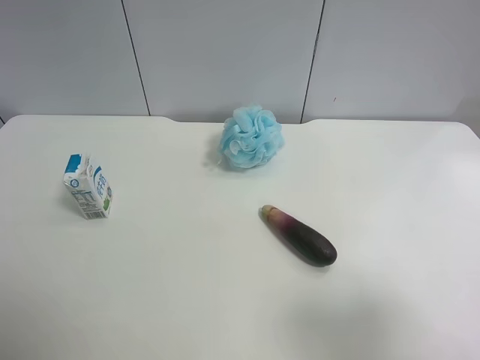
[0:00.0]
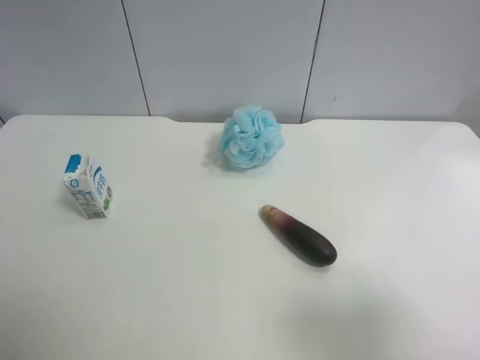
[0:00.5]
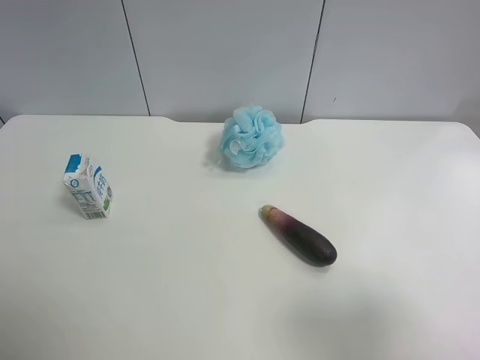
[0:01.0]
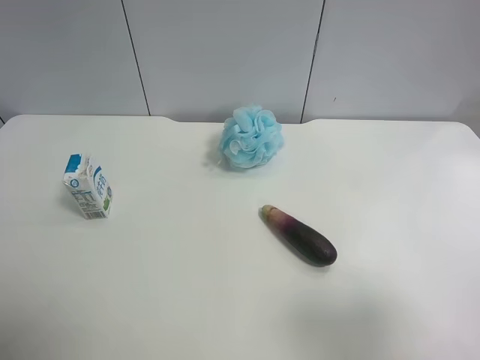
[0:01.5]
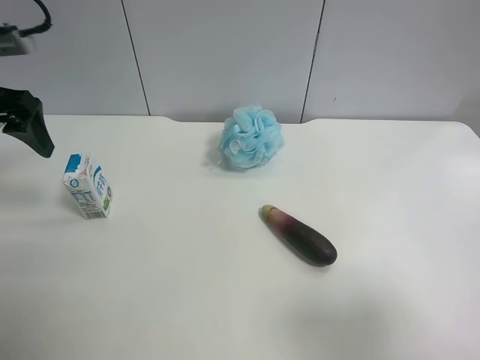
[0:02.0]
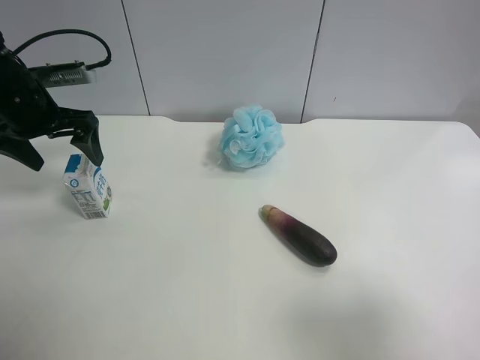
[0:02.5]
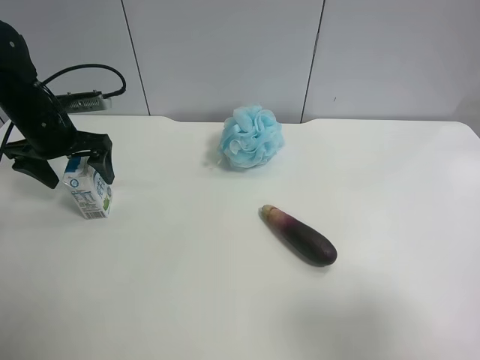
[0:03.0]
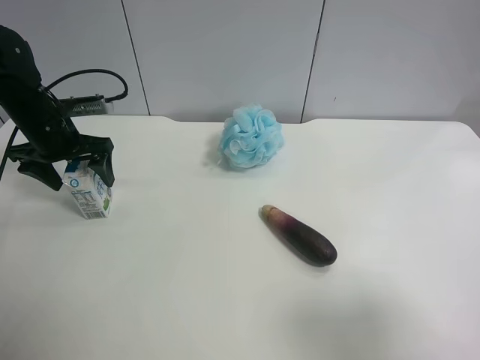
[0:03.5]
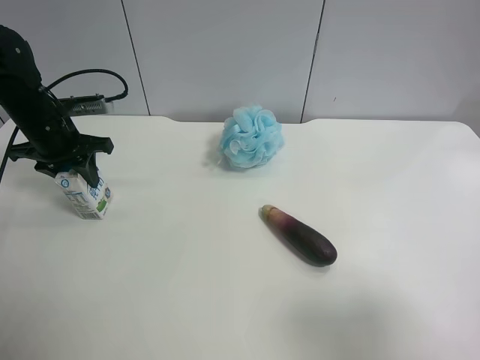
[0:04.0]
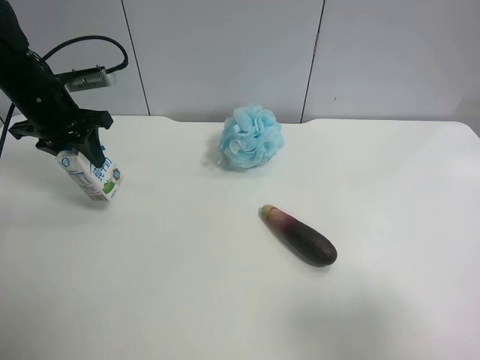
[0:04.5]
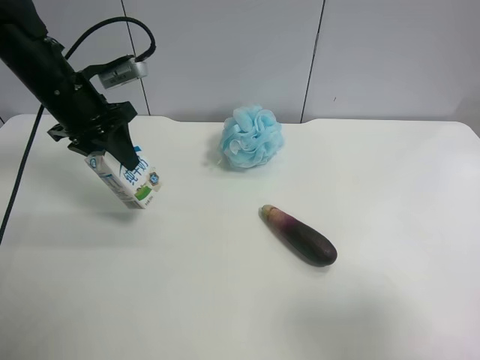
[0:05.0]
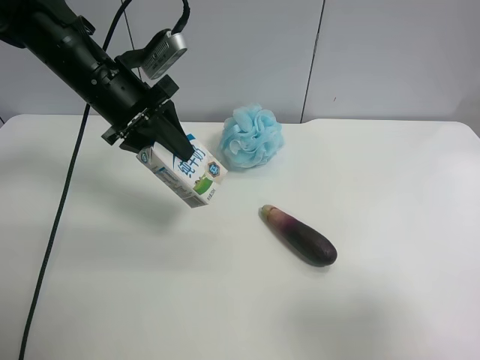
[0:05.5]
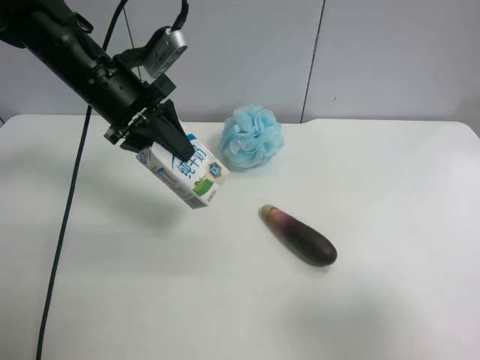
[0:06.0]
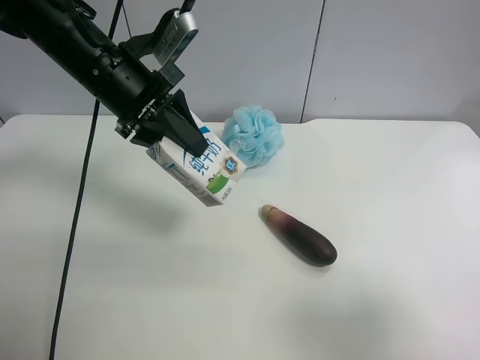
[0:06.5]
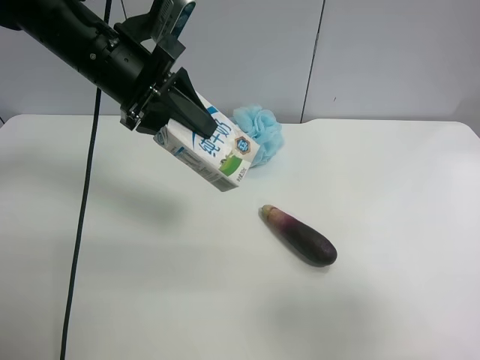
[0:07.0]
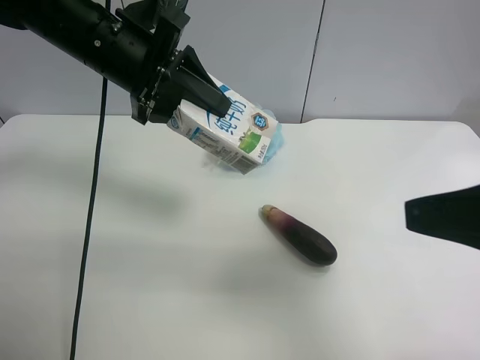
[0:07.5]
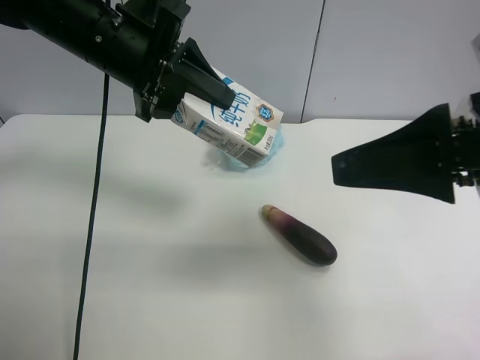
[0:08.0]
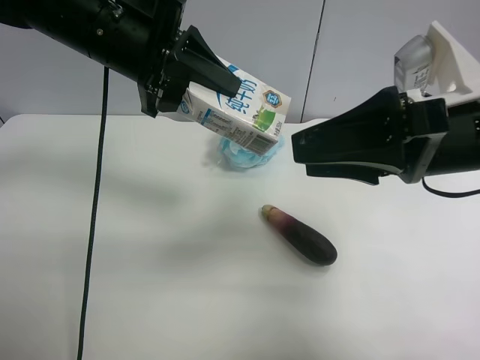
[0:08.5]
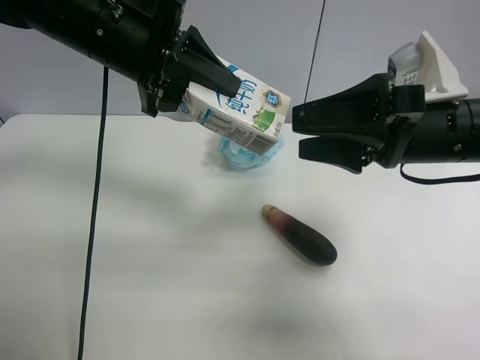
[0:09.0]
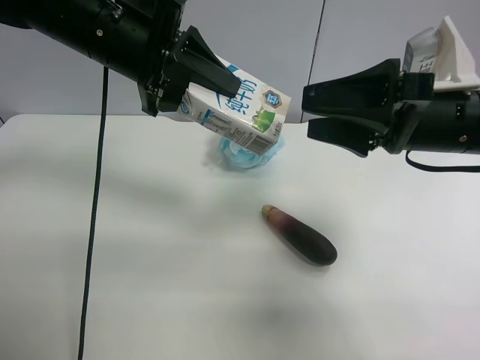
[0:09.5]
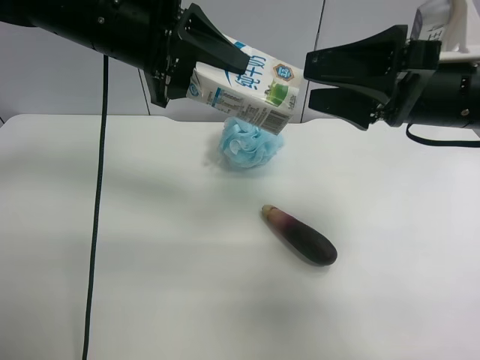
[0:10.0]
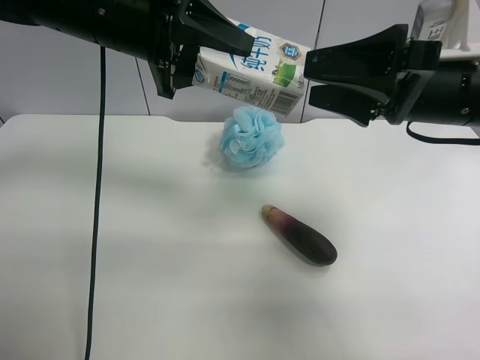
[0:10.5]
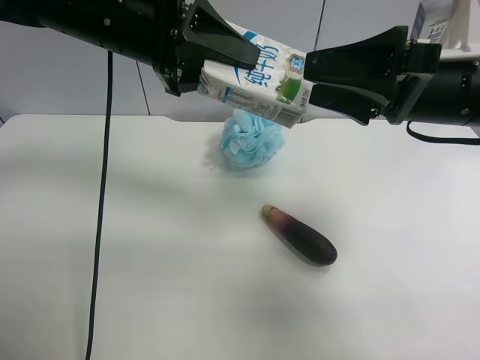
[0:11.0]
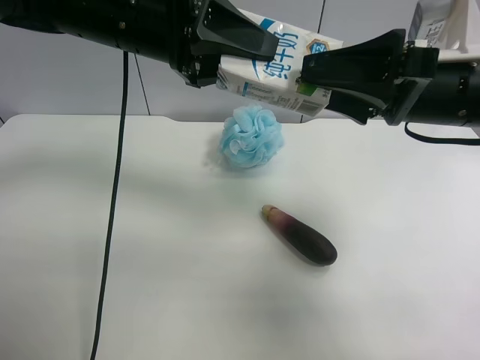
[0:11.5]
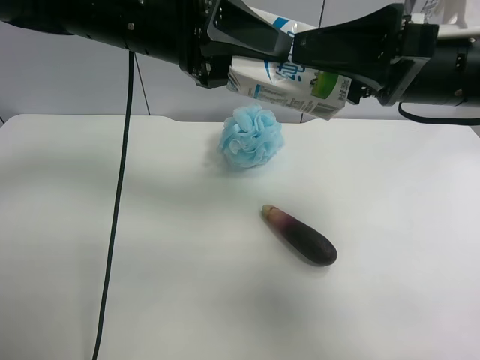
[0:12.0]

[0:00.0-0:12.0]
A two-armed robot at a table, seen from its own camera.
Task of the whole recording: use the left gripper to pick up the item and transfer it from the left gripper to the right gripper.
0:00.0 to 0:02.0: The left gripper heads forward, covering roughly 30 cm.
0:02.0 to 0:04.0: The left gripper is displaced downward and forward by some 15 cm, and closes.
0:04.0 to 0:06.0: The left gripper moves to the right and upward, approximately 15 cm.
0:06.0 to 0:08.0: The left gripper moves about 5 cm; the right gripper moves forward and to the left, approximately 15 cm.
0:08.0 to 0:10.0: The right gripper moves forward, approximately 10 cm.

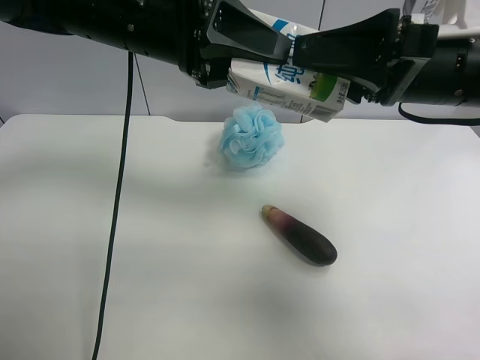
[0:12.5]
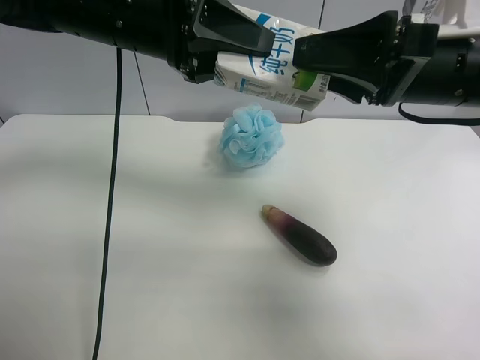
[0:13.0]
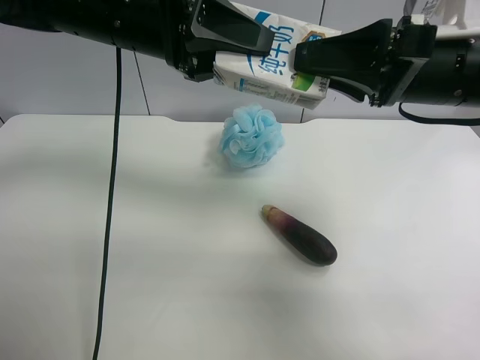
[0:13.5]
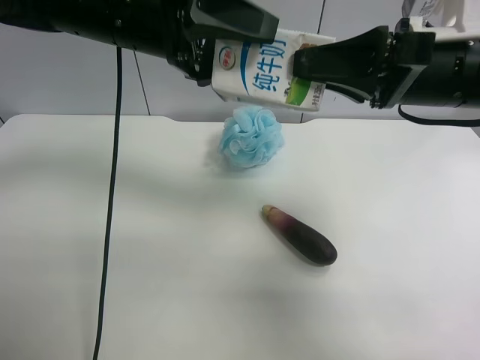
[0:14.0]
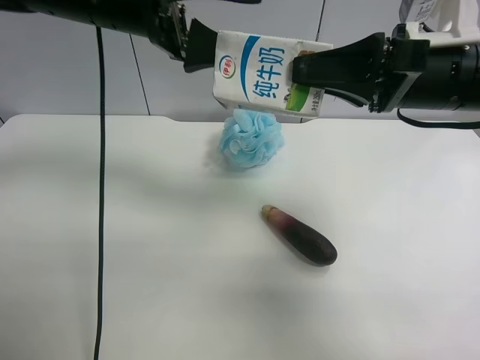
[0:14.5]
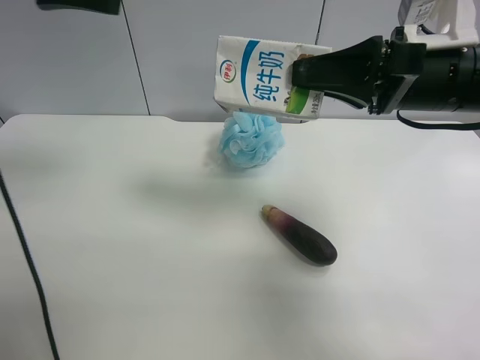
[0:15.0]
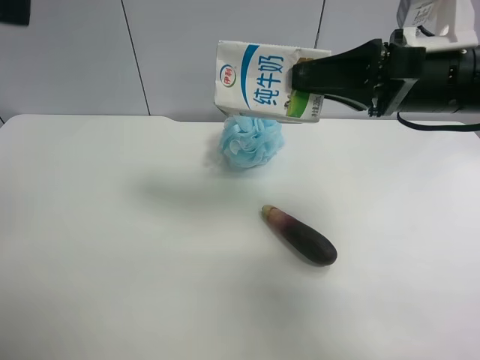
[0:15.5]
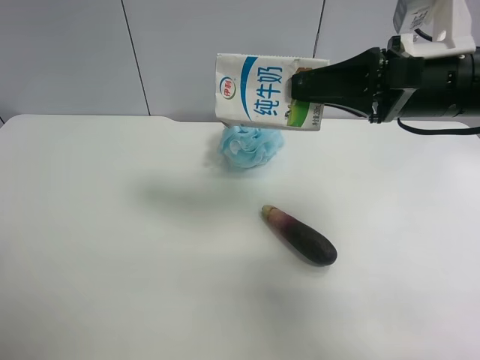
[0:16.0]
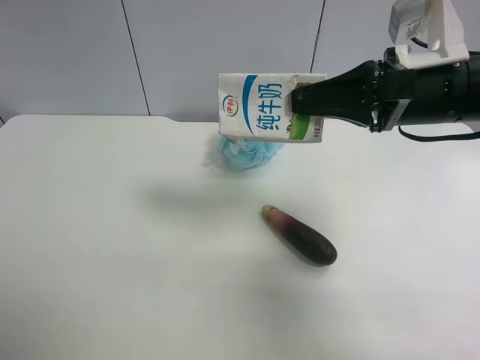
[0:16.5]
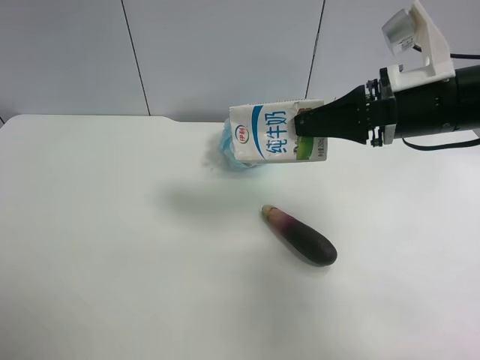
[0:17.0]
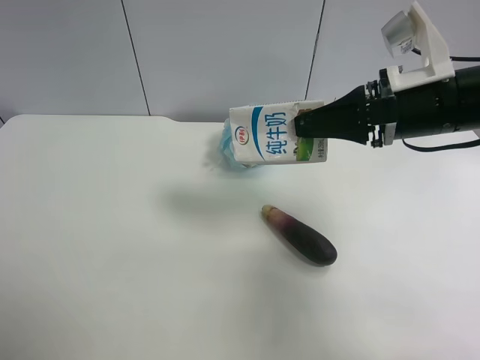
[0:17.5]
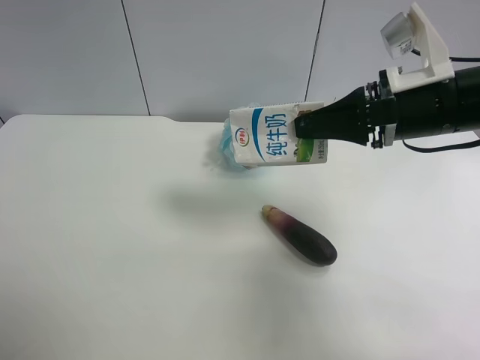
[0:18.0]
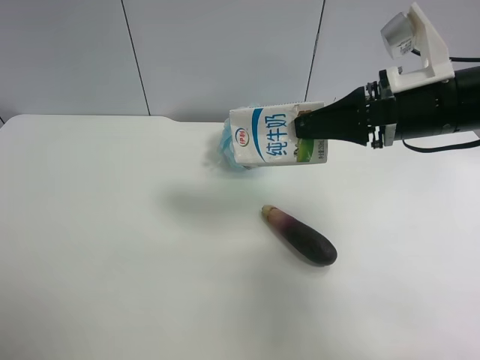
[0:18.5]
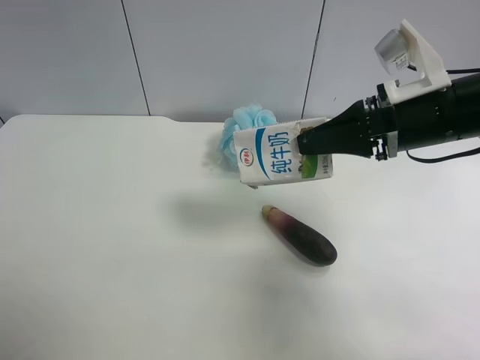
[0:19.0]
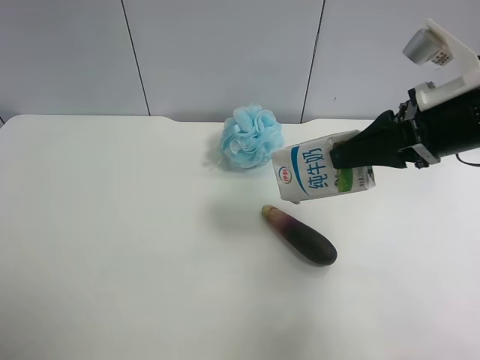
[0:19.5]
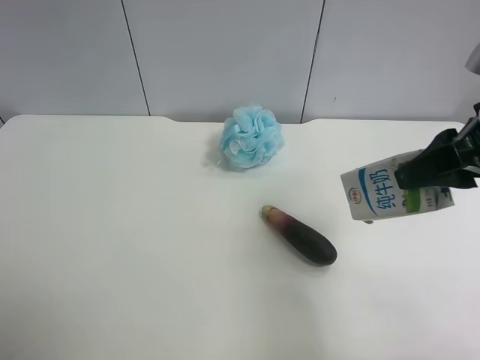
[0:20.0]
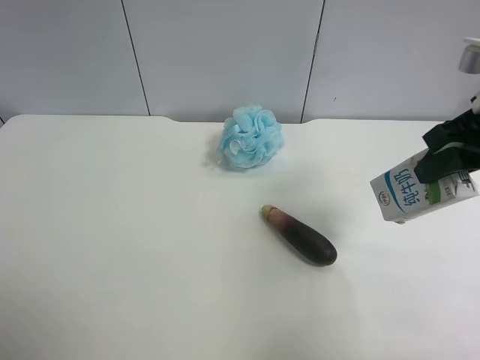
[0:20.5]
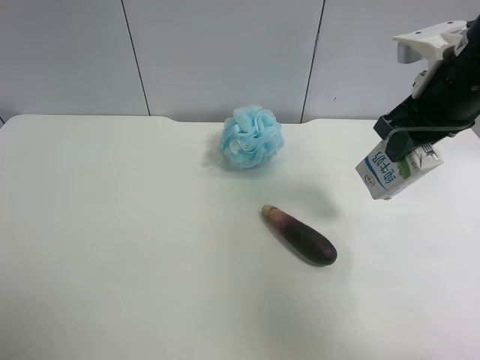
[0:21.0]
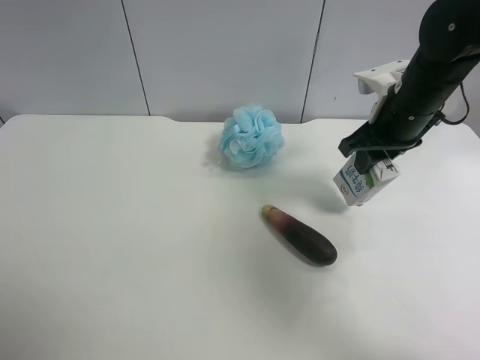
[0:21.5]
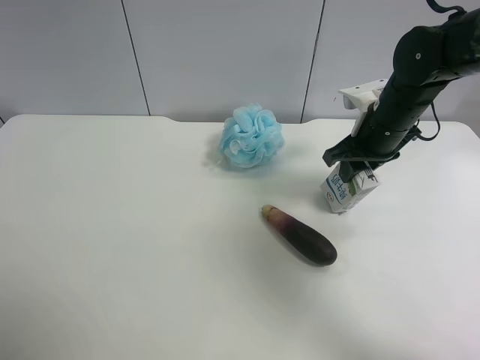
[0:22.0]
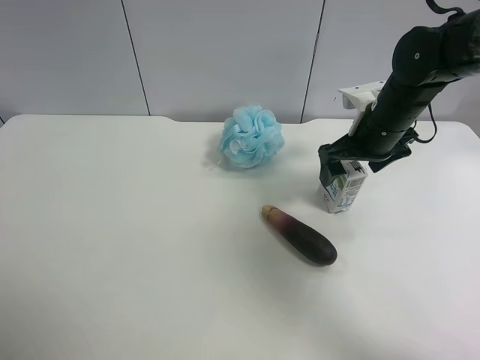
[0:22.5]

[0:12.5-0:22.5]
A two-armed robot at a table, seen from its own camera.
Task of the whole recording: use the left gripper to pick up the item and transfer it from the left gripper to the right gripper.
0:12.5 to 0:14.5: The left gripper opens up. The right gripper closes up.
0:14.5 to 0:16.5: The left gripper heads backward and to the left, covering approximately 35 cm.
0:16.5 to 0:18.5: There are only small adjustments of the grippers.
0:18.5 to 0:20.5: The right gripper travels to the right by about 5 cm.
0:20.5 to 0:22.5: The right gripper goes approximately 15 cm forward, downward and to the left, and opens.

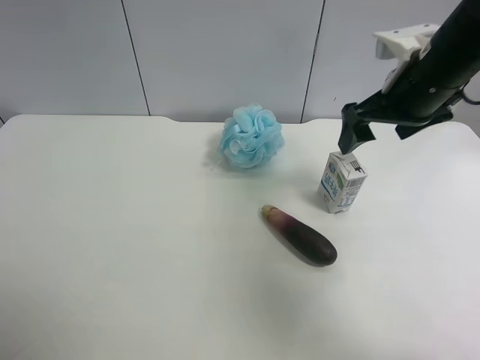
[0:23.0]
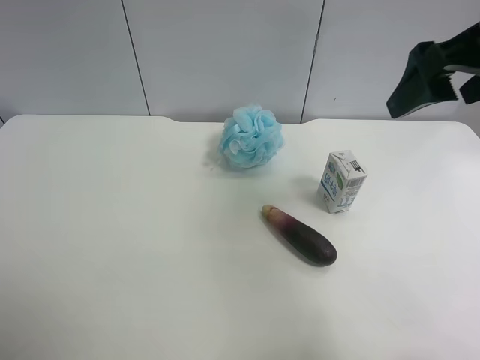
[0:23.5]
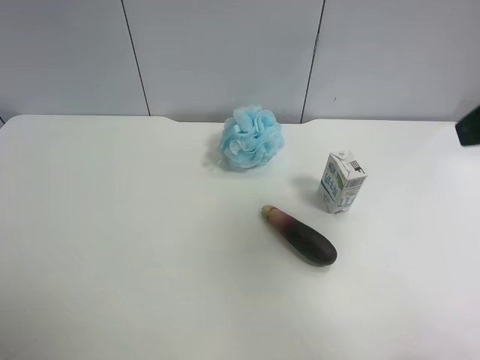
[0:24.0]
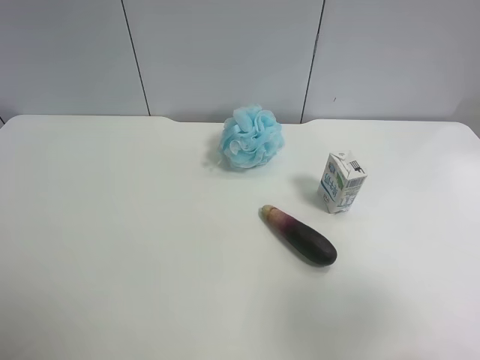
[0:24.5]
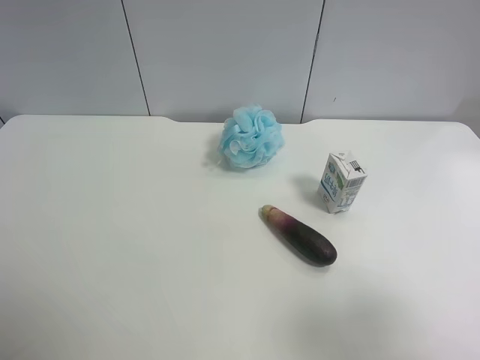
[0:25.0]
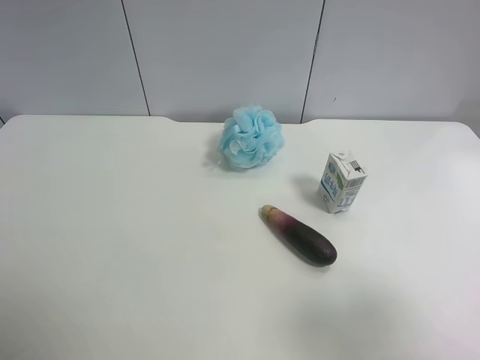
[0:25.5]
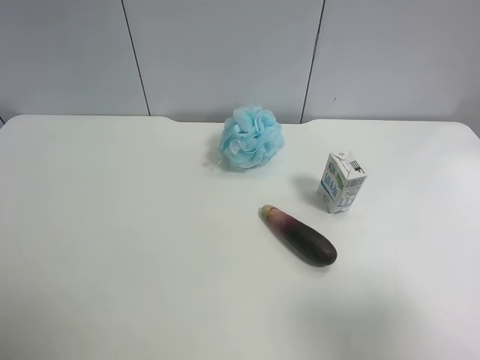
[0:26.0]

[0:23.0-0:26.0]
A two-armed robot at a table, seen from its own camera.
Task of the whole recording: use the left gripper to pick up the item and transfer it from the left gripper to the right gripper.
0:23.0 to 0:24.5: The right gripper shifts about 30 cm backward.
